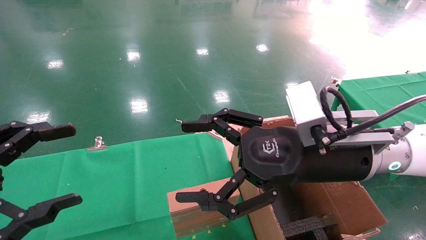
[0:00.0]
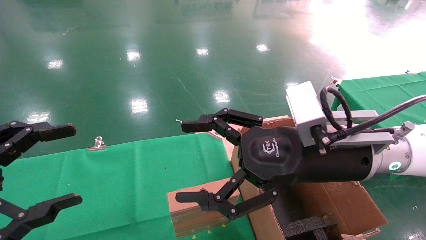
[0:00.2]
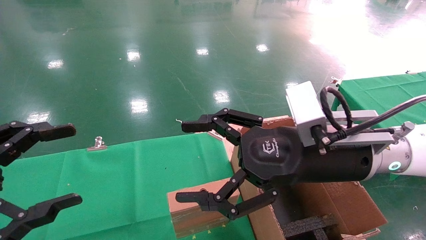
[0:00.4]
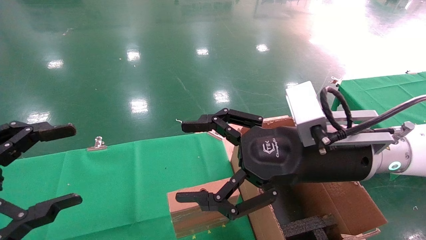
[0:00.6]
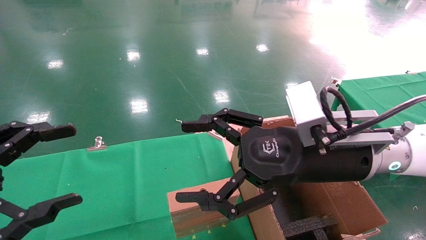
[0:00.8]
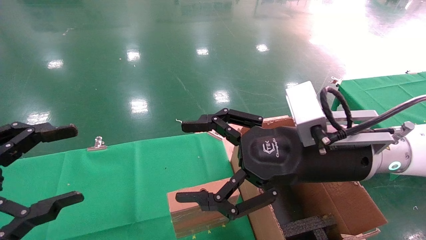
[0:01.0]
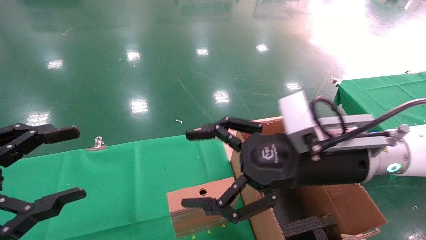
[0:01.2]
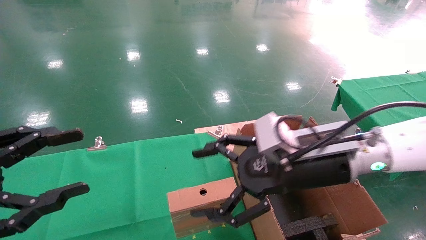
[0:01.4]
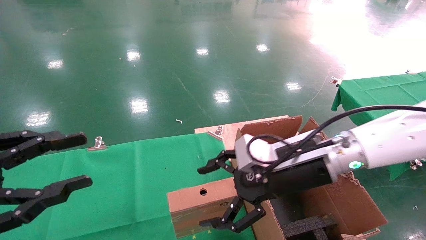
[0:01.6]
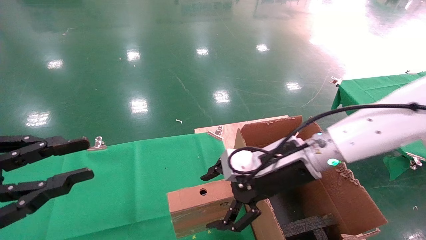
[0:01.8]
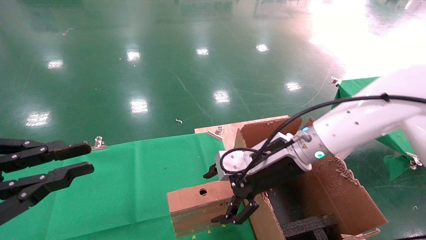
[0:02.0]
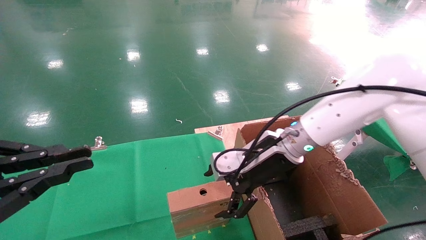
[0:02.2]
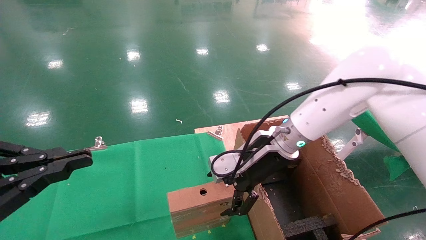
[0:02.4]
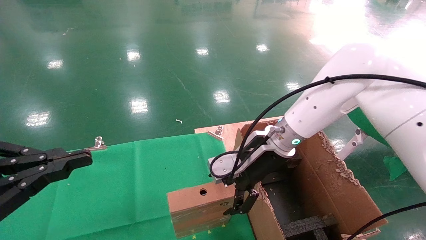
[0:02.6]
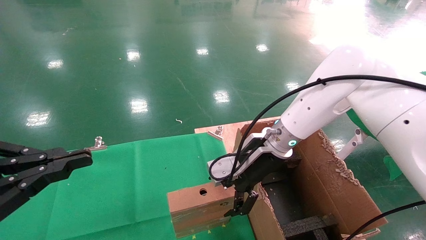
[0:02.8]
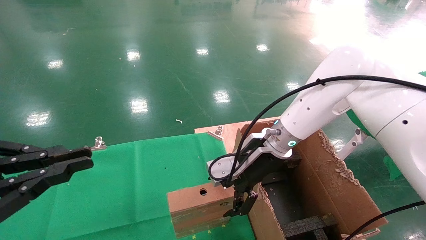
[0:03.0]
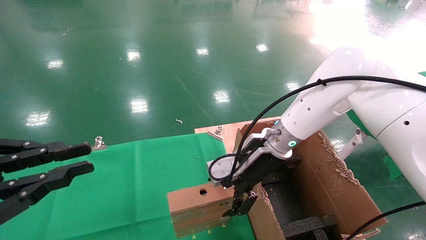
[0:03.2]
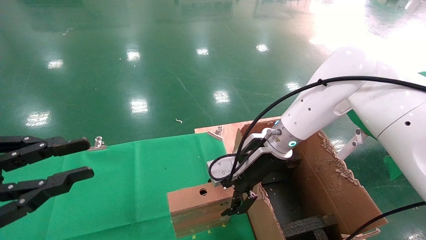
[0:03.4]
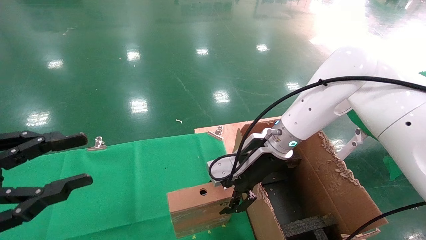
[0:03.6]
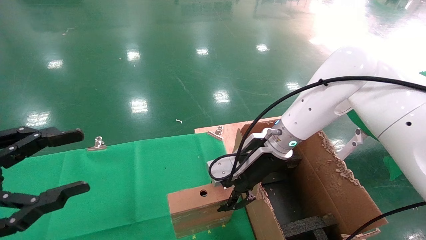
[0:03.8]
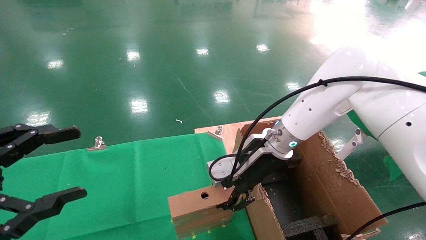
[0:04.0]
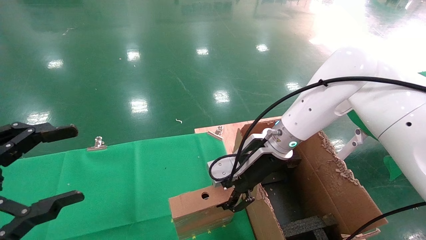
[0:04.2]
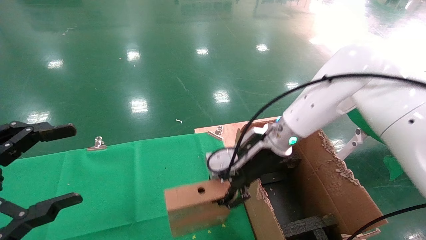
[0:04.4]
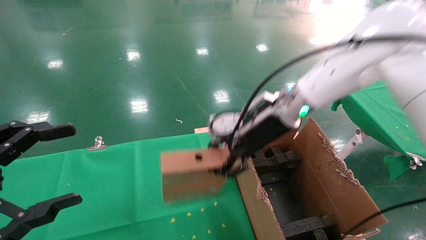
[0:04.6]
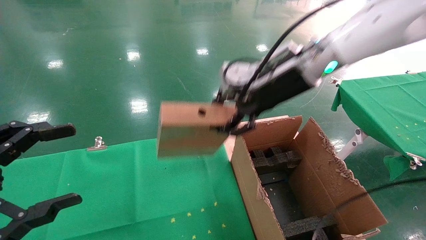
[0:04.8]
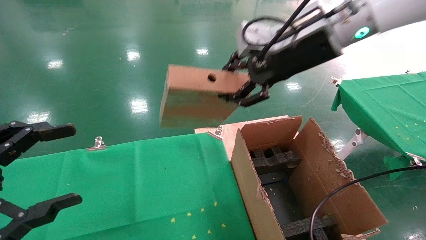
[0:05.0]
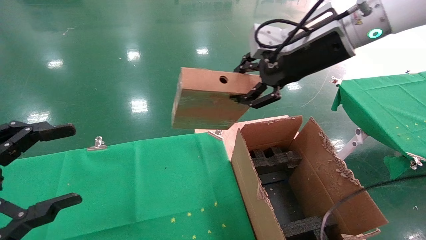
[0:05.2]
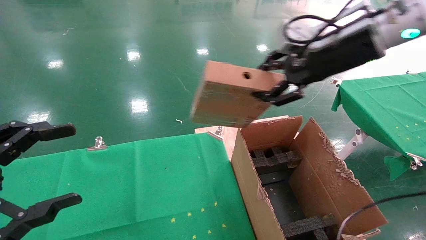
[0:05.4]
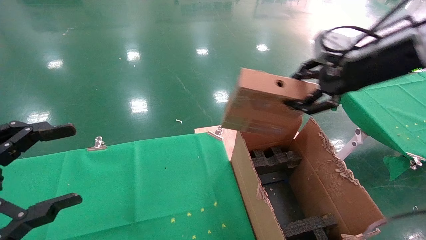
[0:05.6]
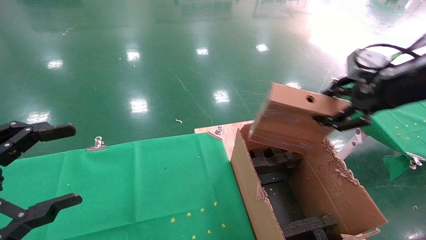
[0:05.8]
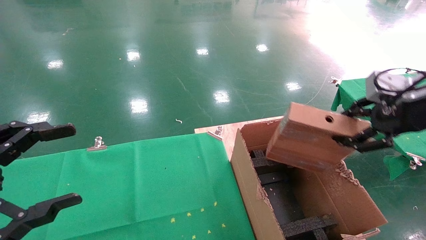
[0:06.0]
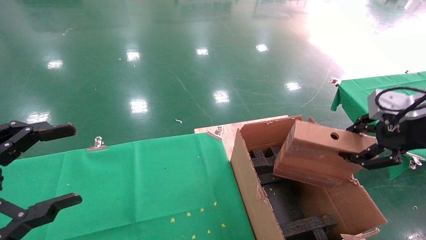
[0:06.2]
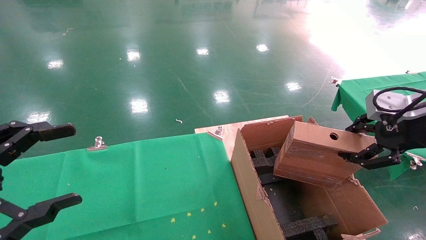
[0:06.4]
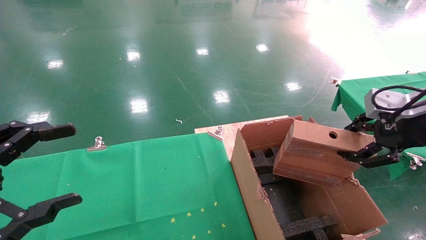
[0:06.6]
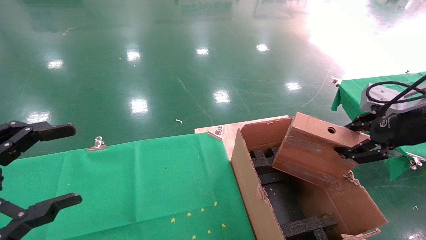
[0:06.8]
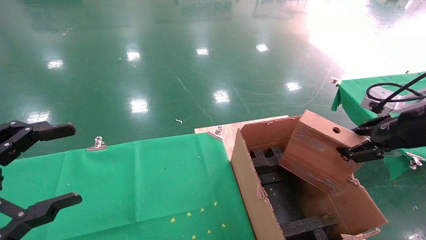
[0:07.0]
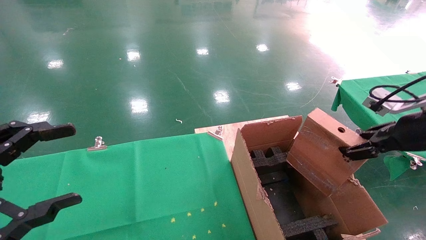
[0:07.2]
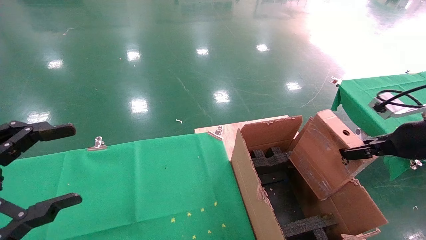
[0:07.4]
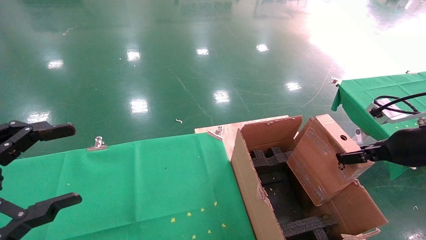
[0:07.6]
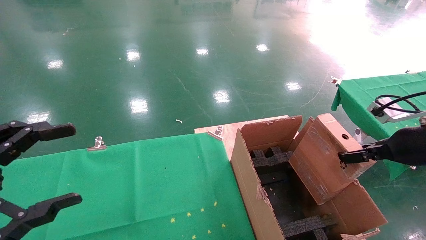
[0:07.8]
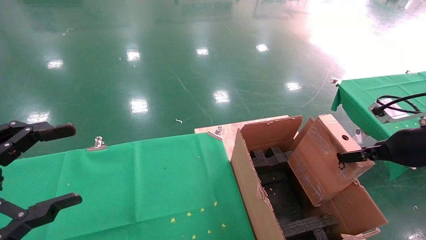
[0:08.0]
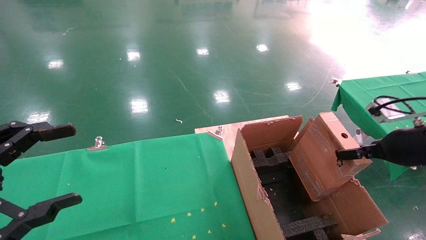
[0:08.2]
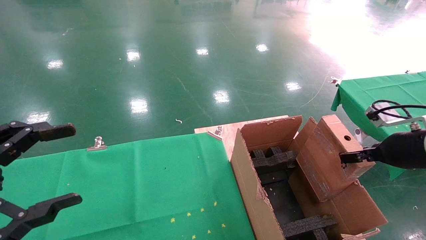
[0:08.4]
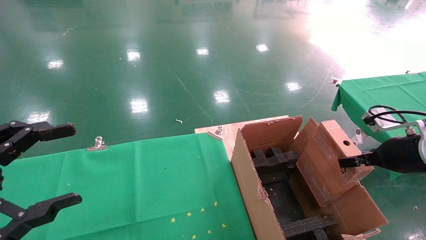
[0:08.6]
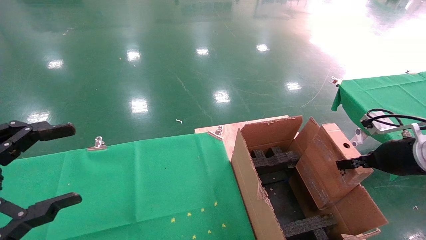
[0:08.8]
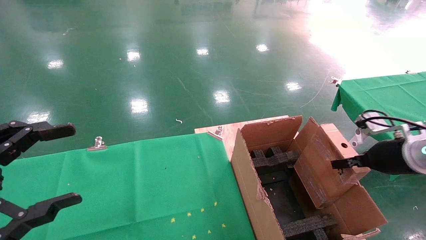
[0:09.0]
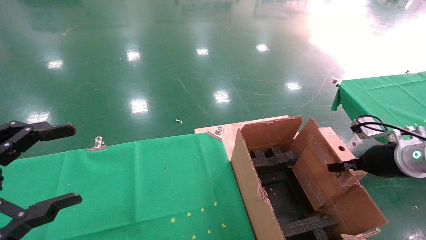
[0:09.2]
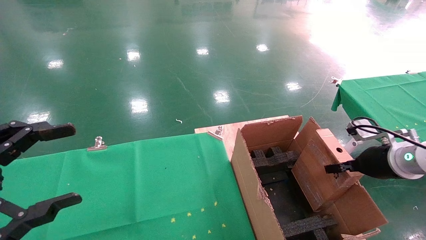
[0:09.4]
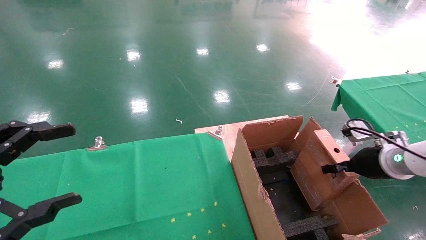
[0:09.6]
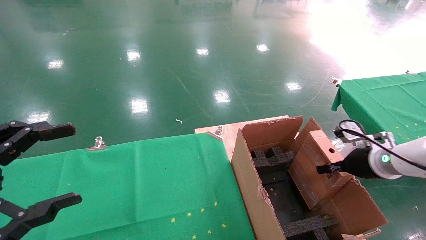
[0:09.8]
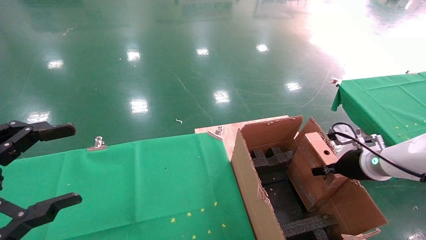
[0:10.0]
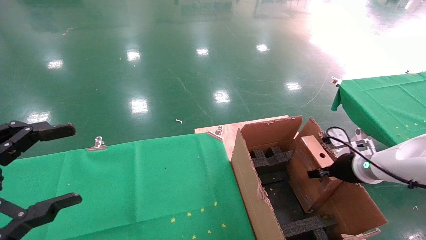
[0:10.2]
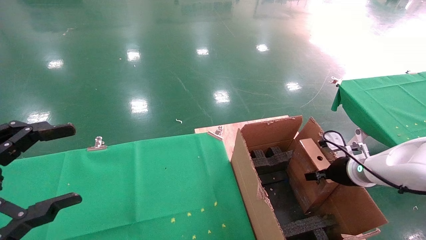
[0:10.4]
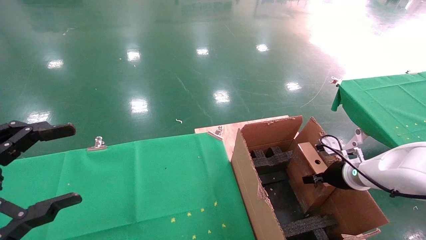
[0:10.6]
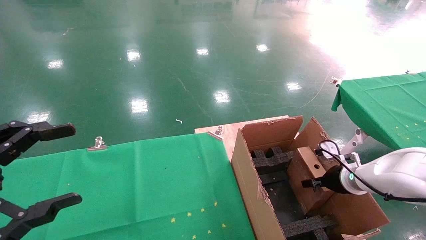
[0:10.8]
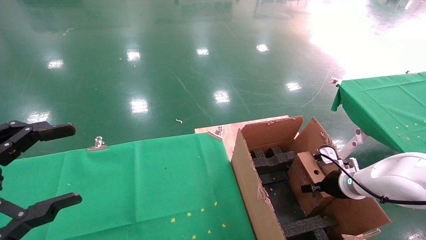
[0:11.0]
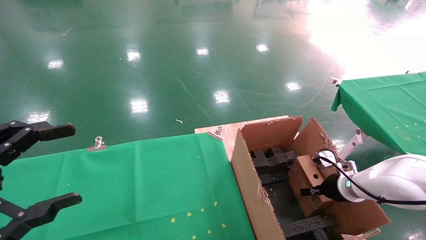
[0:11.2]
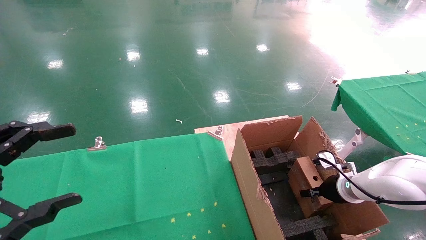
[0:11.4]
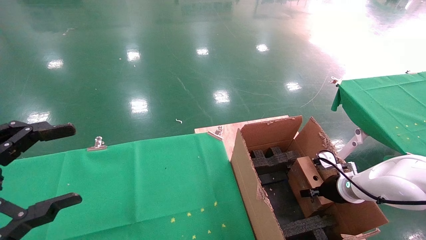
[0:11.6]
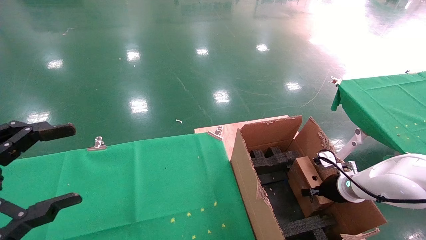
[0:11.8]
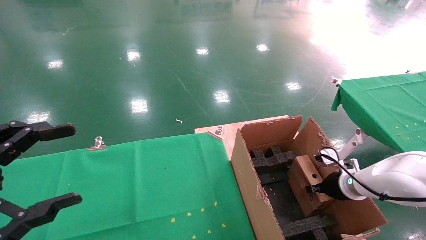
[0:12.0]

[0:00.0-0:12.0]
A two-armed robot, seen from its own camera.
Task of the whole recording: using a robotic arm to pick up a cardboard box and palace it the carton.
Step, 0:01.4 to 0:03.8: Pick up the mouse and the power cord paper box.
0:00.0 to 0:01.6: The right gripper is displaced forward by approximately 5 cm. Meanwhile the left gripper closes.
0:01.6 to 0:03.0: The right gripper is displaced forward by some 10 cm. The left gripper closes up.
0:03.0 to 0:04.4: The left gripper opens up. The right gripper closes up.
0:04.4 to 0:06.0: The right gripper travels to the right, backward and upward by roughly 30 cm.
0:06.0 to 0:07.6: The right gripper moves downward, approximately 10 cm.
0:07.6 to 0:09.0: The right gripper moves downward, about 5 cm.
0:09.0 to 0:10.4: The right gripper travels downward and forward by roughly 10 cm.

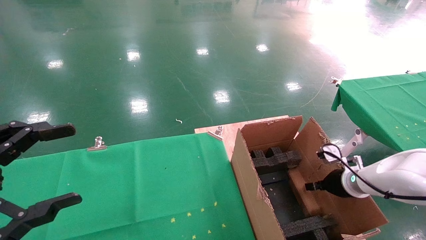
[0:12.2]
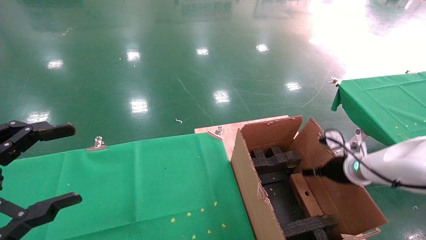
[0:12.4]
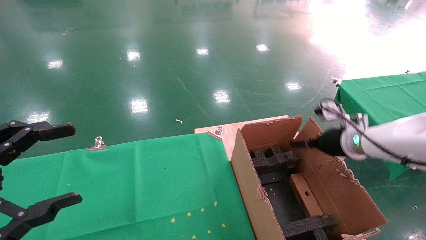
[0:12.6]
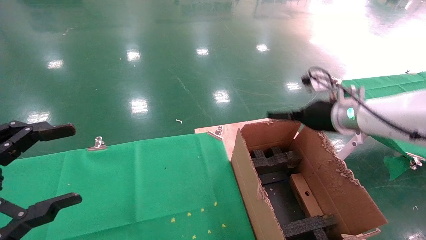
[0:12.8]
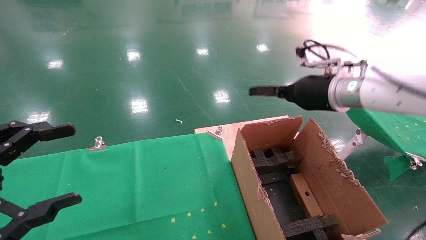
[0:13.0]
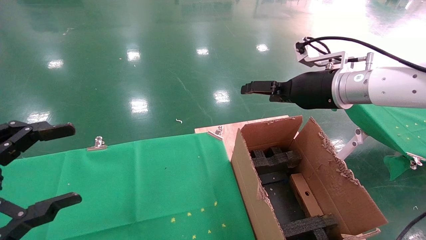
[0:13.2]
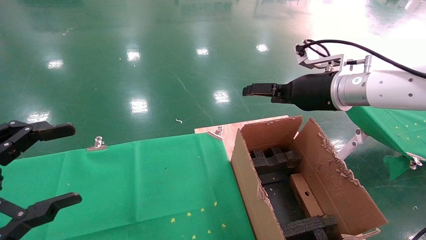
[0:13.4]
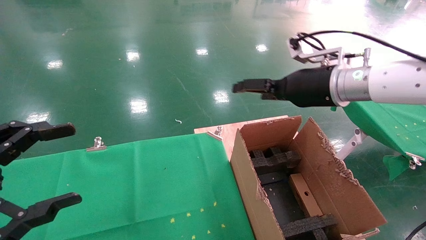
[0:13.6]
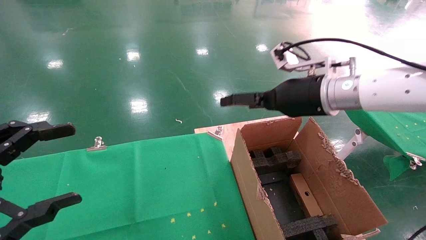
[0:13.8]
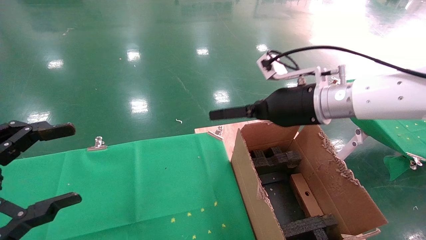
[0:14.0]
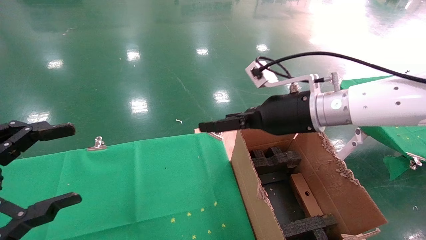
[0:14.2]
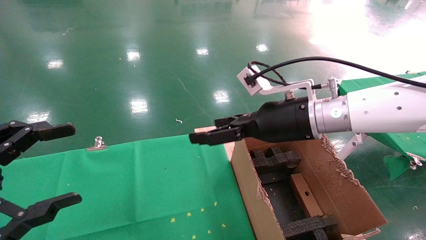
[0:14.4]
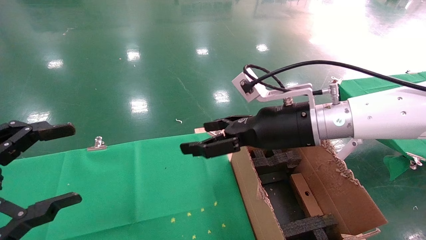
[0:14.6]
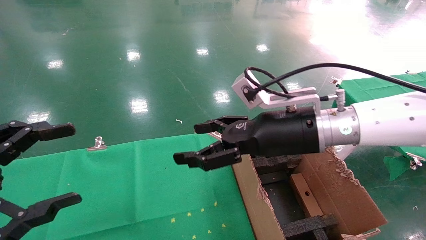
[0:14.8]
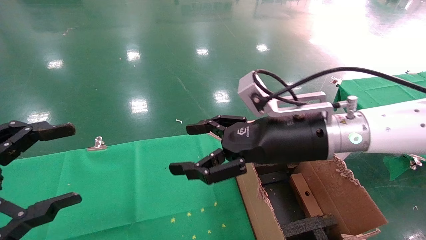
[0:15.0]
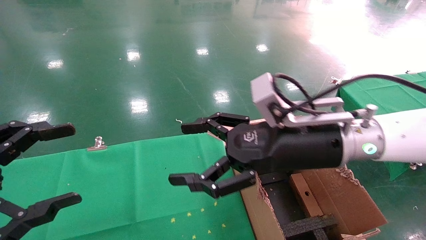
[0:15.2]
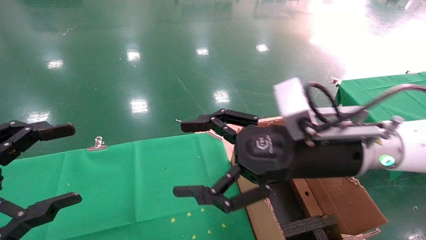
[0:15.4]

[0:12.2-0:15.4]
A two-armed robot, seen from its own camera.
Task of the whole recording: using a robotic arm to pick up a cardboard box and palace it the carton.
0:12.2 to 0:13.8: The right gripper goes approximately 25 cm upward and to the left, and opens its fingers.
0:13.8 to 0:15.4: The right gripper travels backward by about 10 cm.

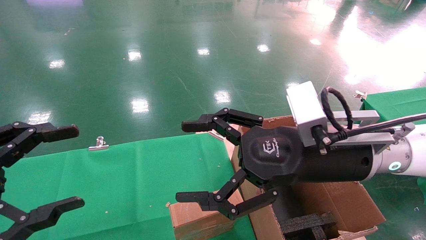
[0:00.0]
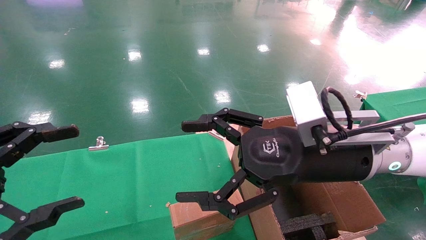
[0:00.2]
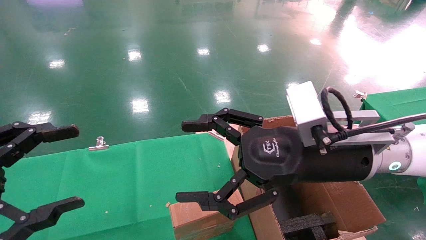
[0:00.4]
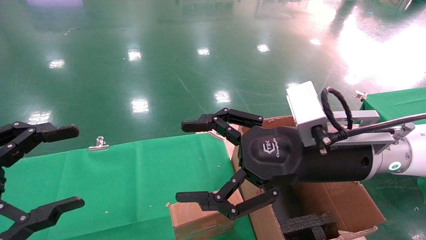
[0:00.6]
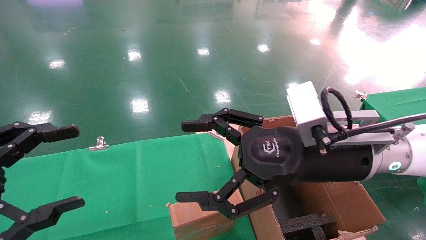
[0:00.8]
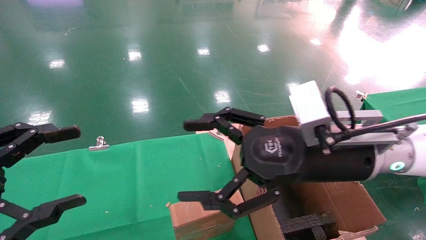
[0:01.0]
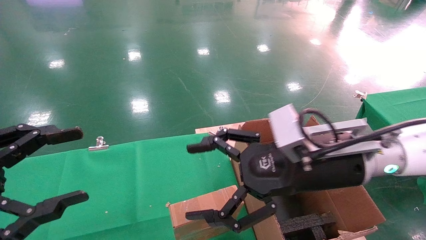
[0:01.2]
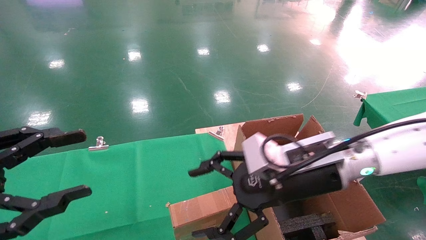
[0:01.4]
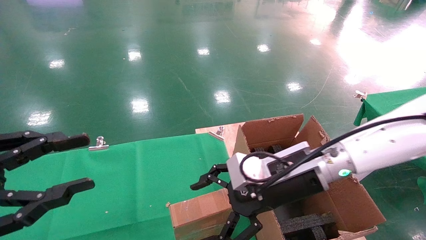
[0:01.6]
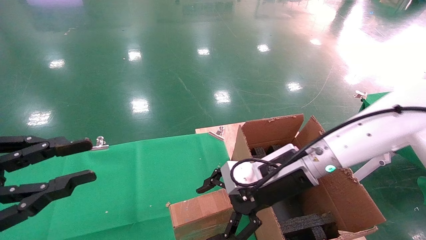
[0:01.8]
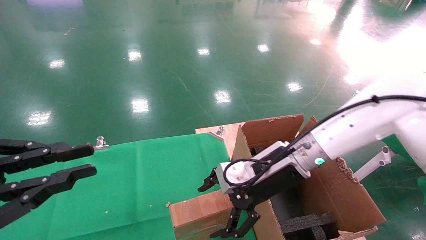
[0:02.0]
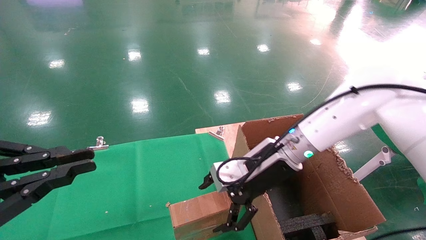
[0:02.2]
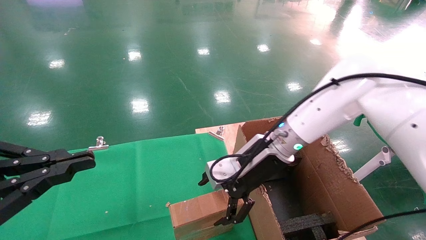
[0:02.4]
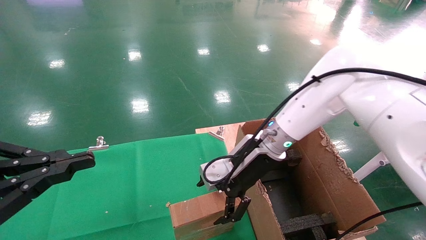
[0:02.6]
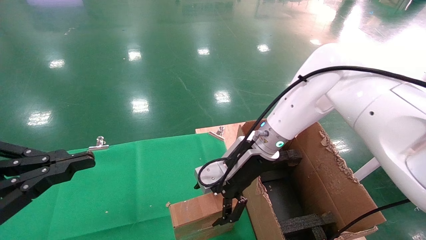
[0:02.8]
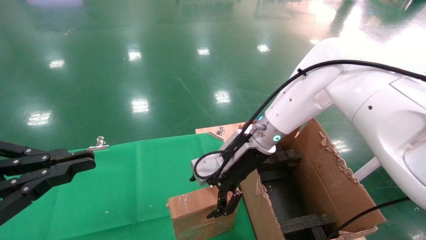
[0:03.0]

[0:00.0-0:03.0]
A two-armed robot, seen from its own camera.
Task of the whole recording: using a robotic arm to pick up a cardboard box and palace it the carton.
0:00.0 to 0:01.6: The right gripper travels downward by about 5 cm.
0:01.6 to 0:03.0: The right gripper moves forward and to the left, roughly 10 cm. Meanwhile the left gripper closes up.
